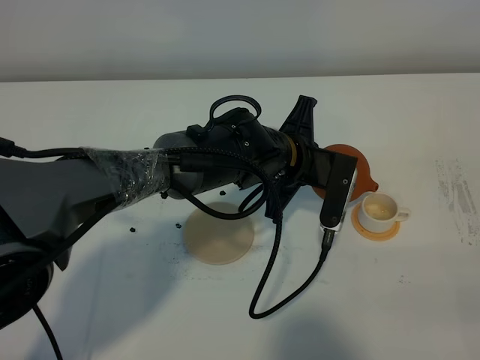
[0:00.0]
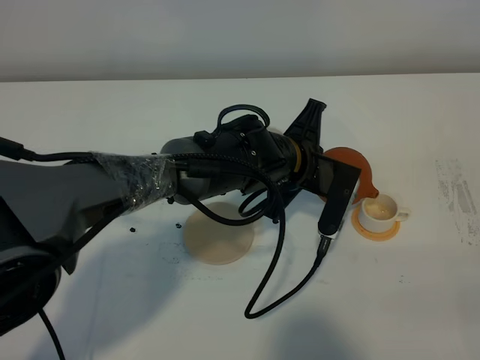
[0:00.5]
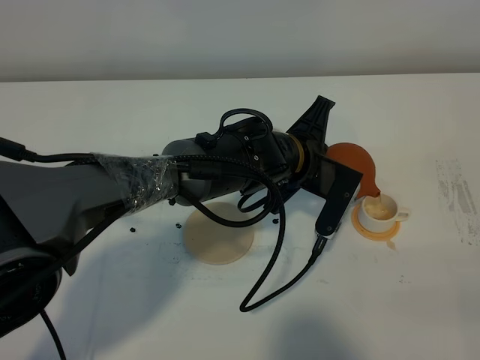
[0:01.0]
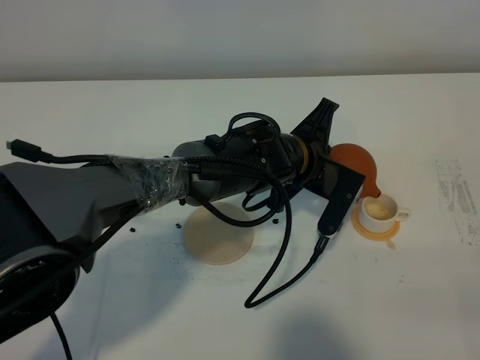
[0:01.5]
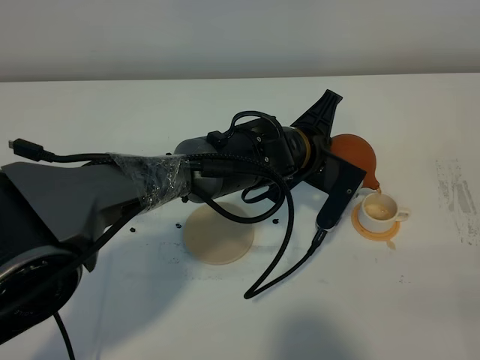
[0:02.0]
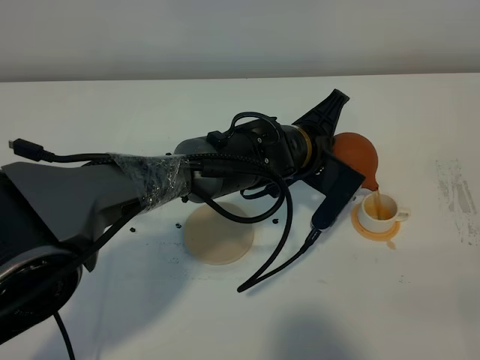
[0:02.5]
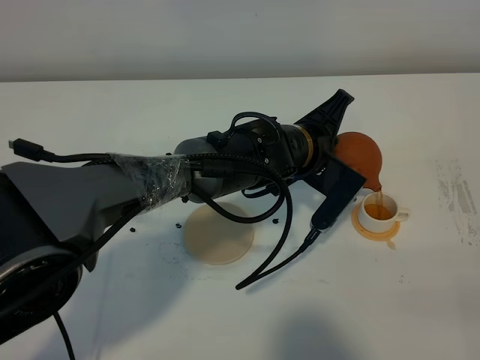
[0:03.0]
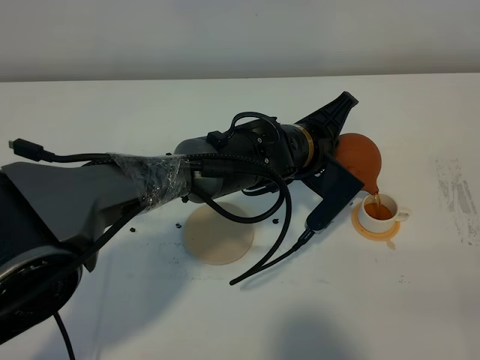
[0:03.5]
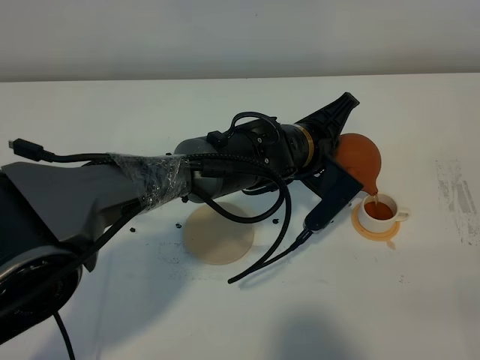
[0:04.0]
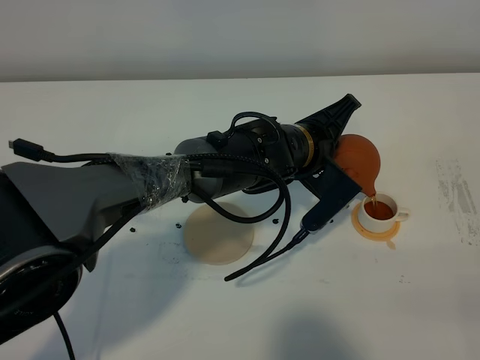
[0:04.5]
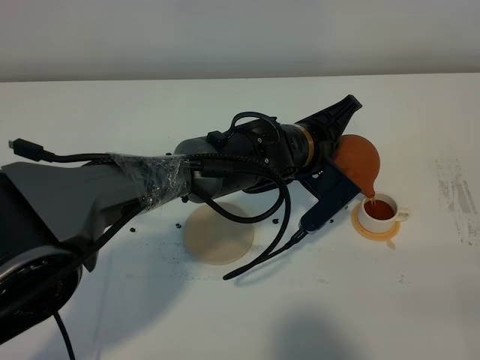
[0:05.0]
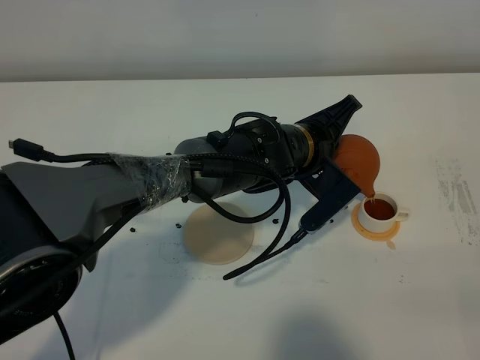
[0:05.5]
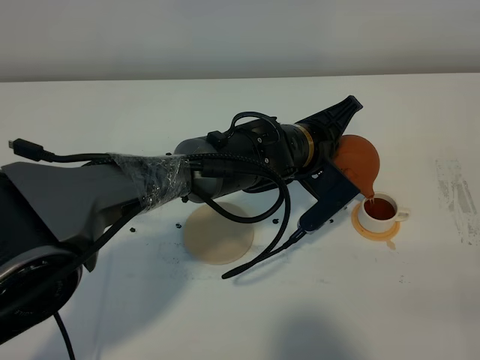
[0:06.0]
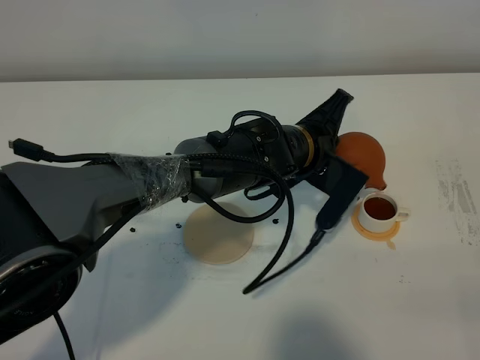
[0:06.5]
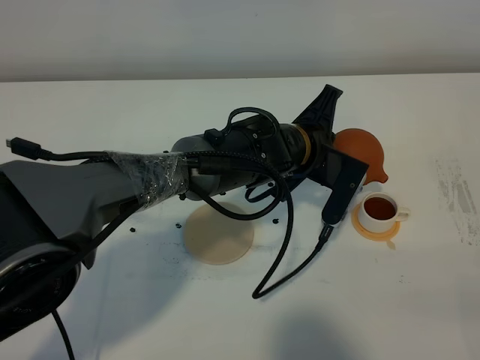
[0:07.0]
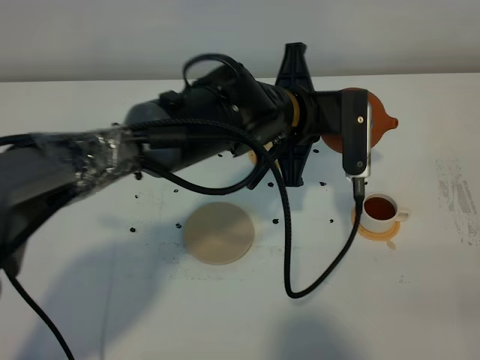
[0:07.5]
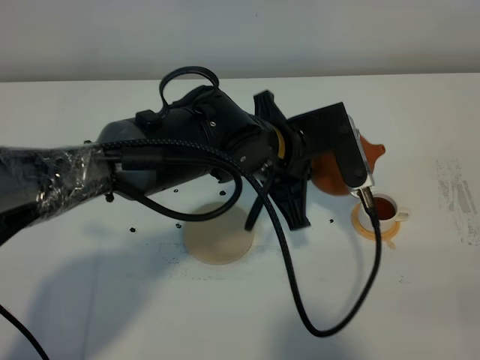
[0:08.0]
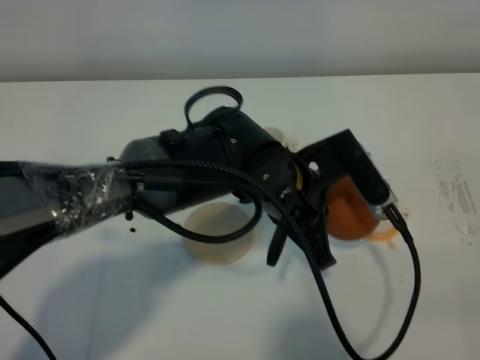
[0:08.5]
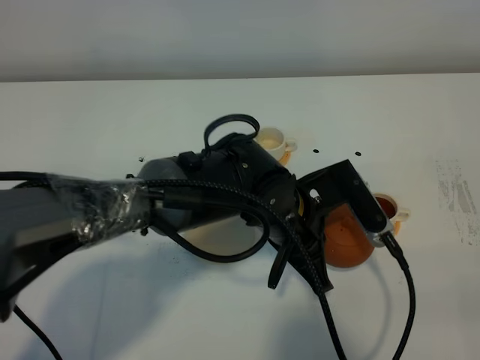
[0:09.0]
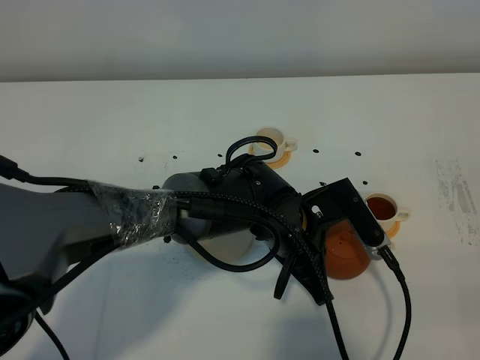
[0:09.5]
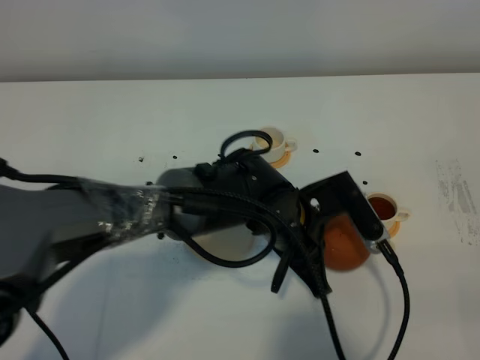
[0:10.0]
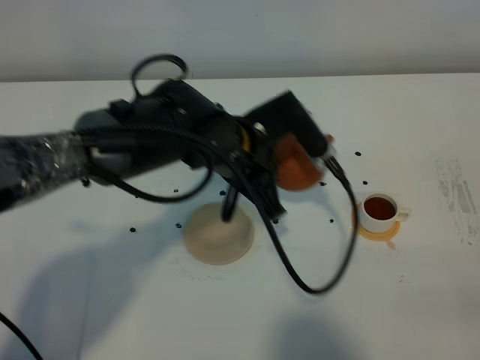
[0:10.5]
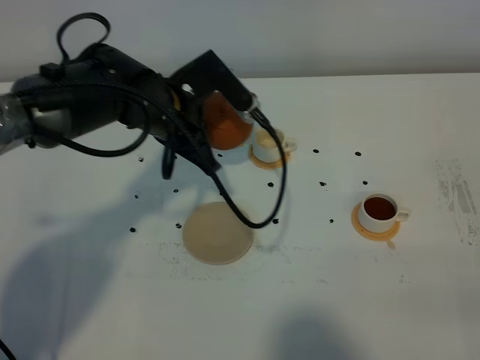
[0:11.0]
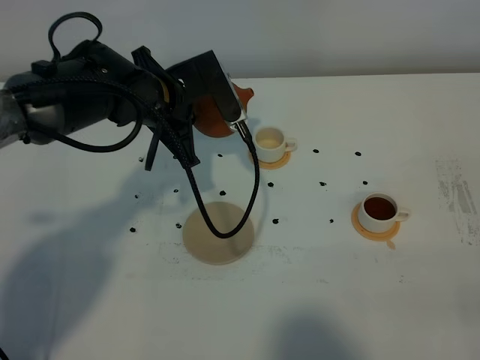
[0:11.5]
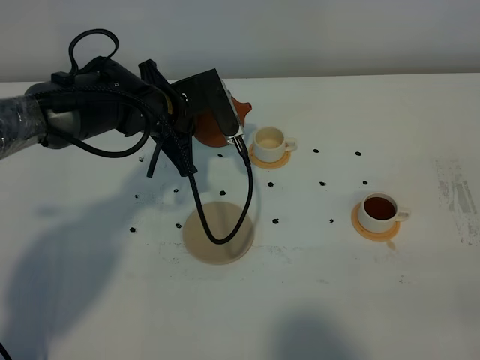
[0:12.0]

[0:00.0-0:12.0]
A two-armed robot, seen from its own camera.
Task of the whole recording: grasp the brown teapot and pour the tea into the two white teacups one by one, put the brown teapot back in its original place.
0:00.0 to 0:02.0: The grippers stay close to where they were, moving slightly.
0:02.0 to 0:04.0: The grippers make only small movements.
0:04.0 to 0:06.0: Neither gripper changes place.
0:06.0 to 0:08.0: The left gripper travels upward and backward by roughly 10 cm.
0:08.0 to 0:10.0: The left gripper shifts some 5 cm downward.
0:10.0 to 0:12.0: The left gripper is displaced to the left and forward by roughly 20 cm.

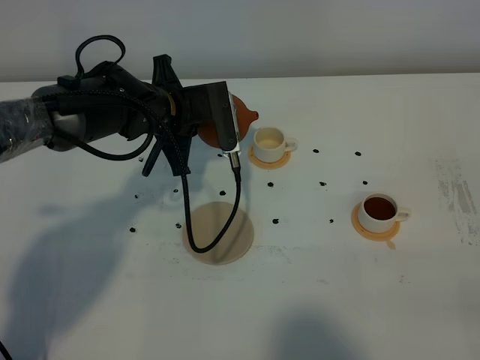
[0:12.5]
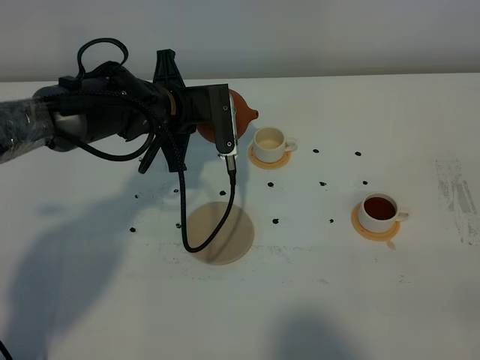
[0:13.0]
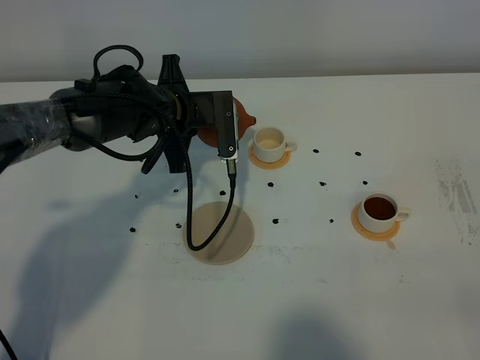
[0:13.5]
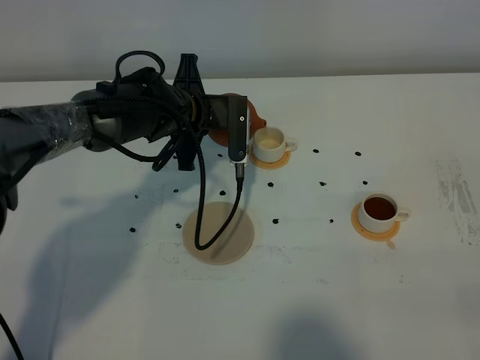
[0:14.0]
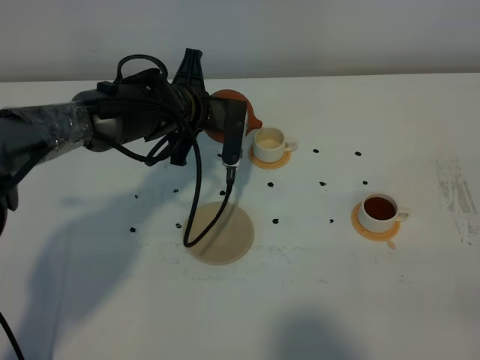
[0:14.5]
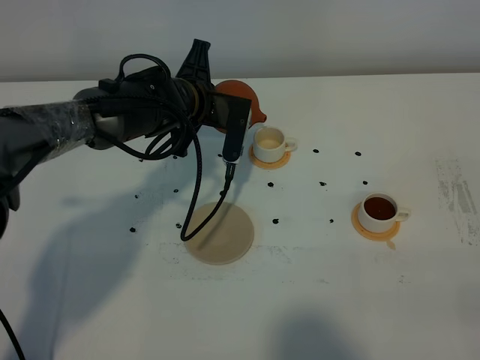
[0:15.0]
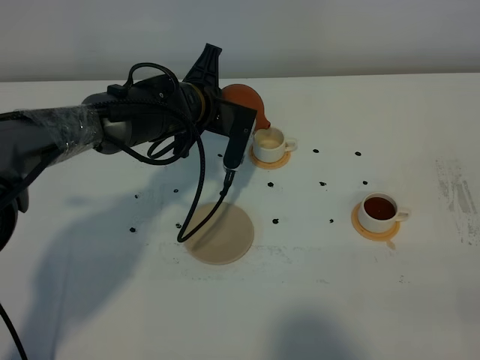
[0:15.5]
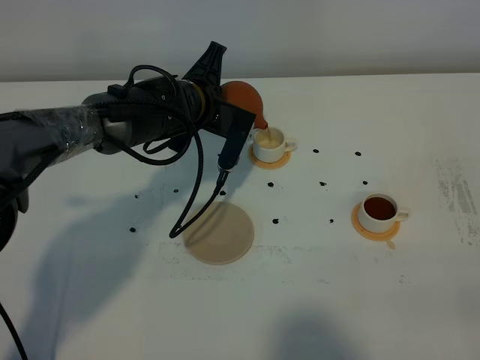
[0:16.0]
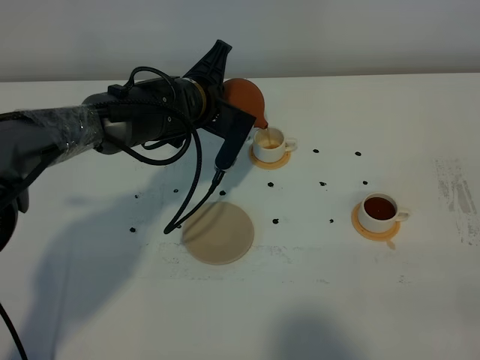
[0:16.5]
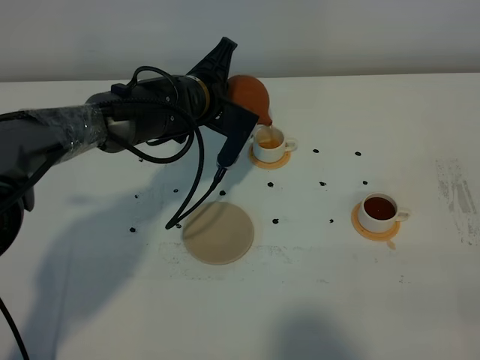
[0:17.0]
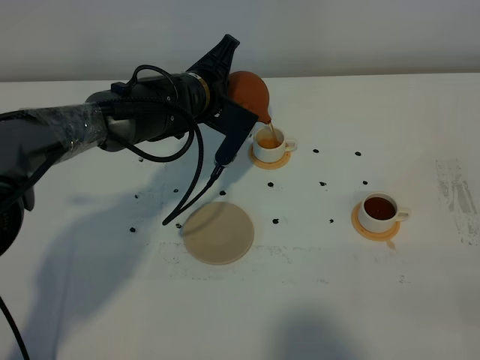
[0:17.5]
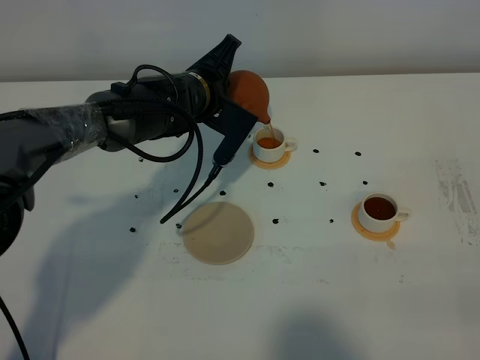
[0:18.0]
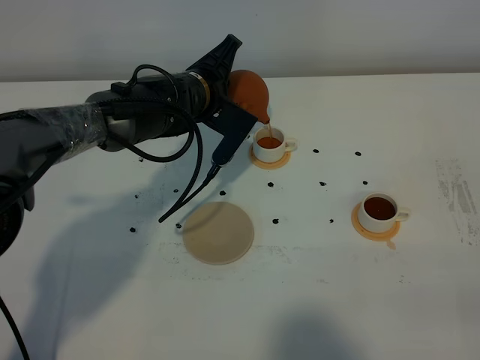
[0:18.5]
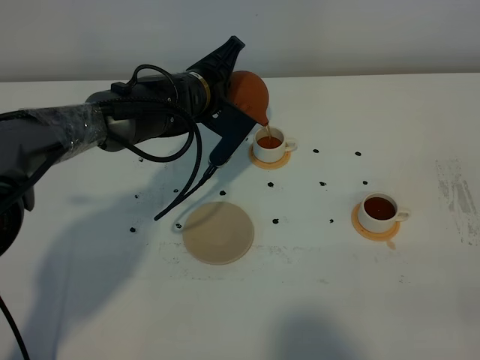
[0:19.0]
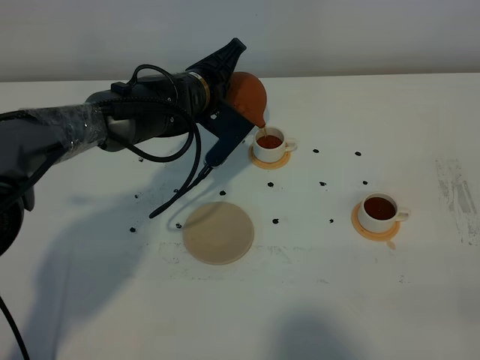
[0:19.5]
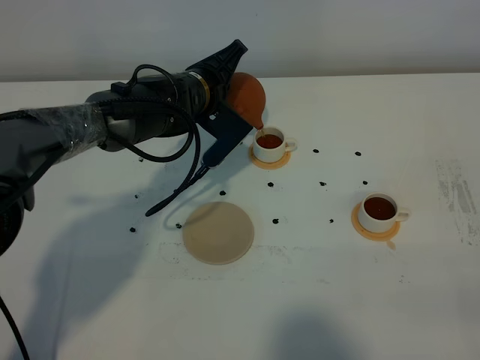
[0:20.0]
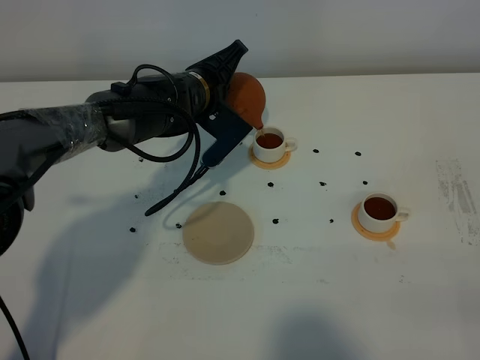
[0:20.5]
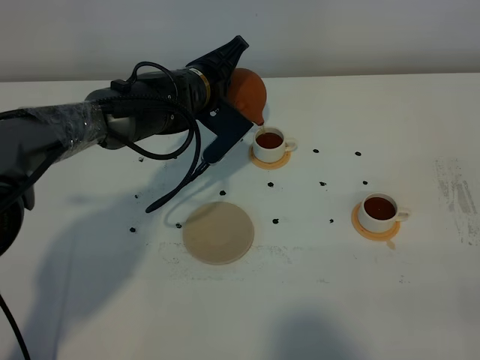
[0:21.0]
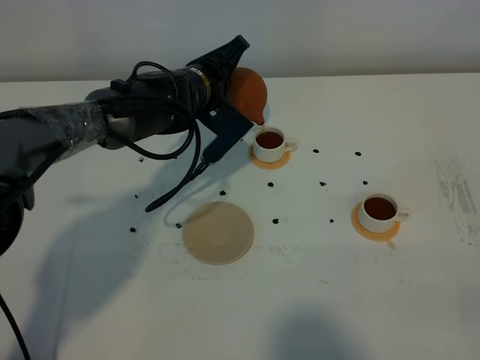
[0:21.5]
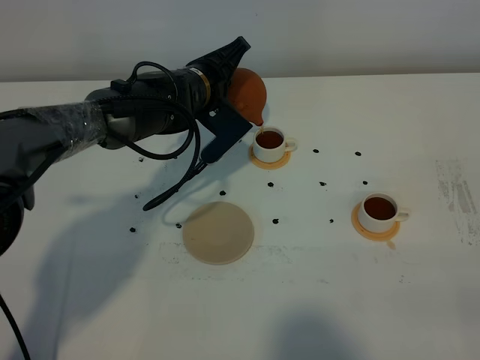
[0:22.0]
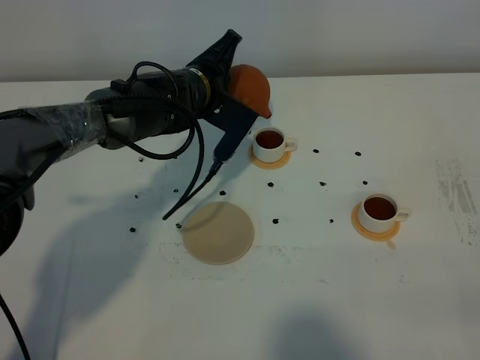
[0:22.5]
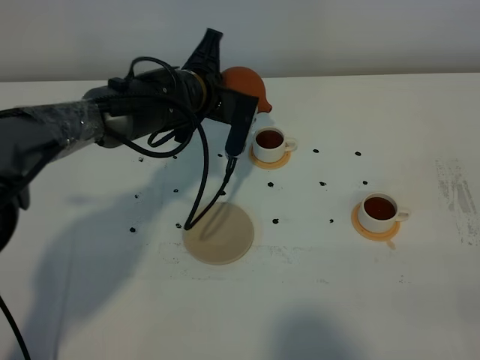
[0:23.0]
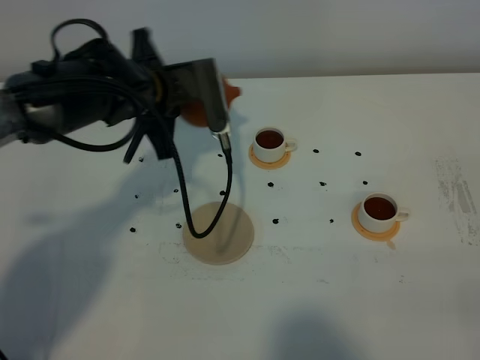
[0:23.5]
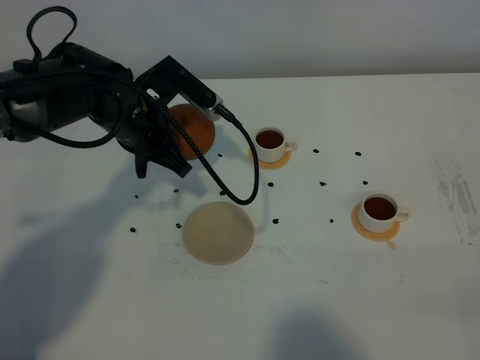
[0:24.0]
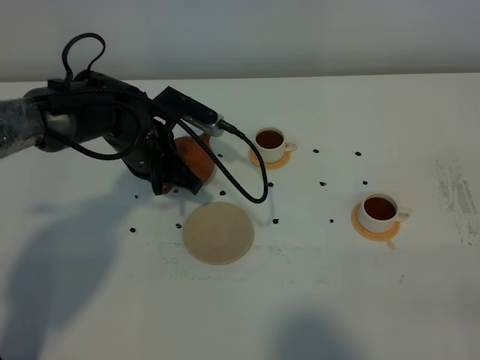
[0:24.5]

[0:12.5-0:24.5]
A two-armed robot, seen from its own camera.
Task of the whole recording: grasp the brown teapot and pour the tea into the two white teacups one by one, put the brown teapot back in its original place.
Step, 0:12.5 to 0:22.5: Pour tea into the teacup with the left gripper.
0:16.5 to 0:22.5: The grippers move only a little.
0:22.5 to 0:24.5: The left gripper travels to the left and backward by approximately 10 cm.

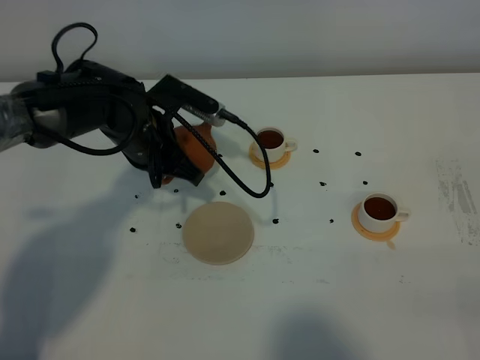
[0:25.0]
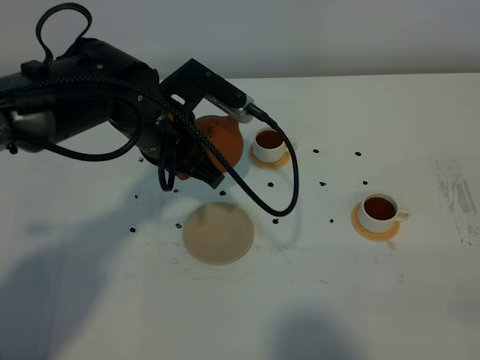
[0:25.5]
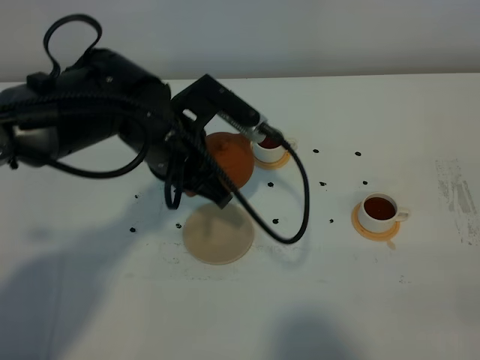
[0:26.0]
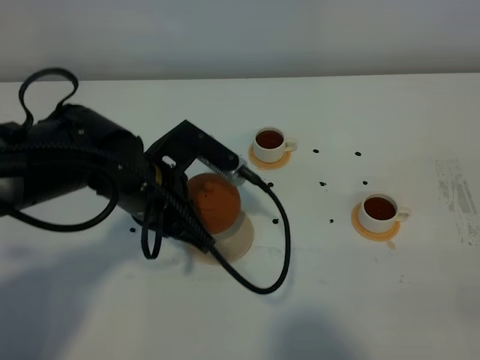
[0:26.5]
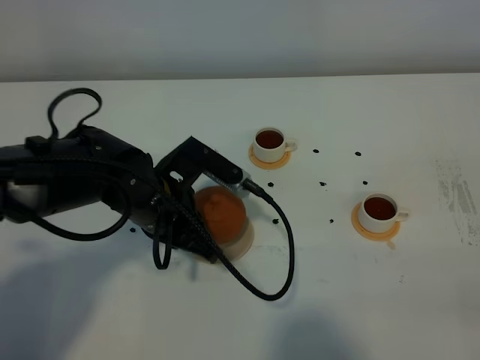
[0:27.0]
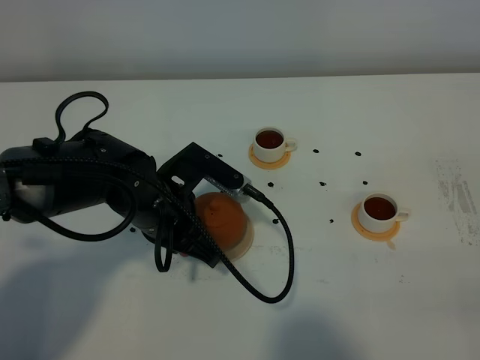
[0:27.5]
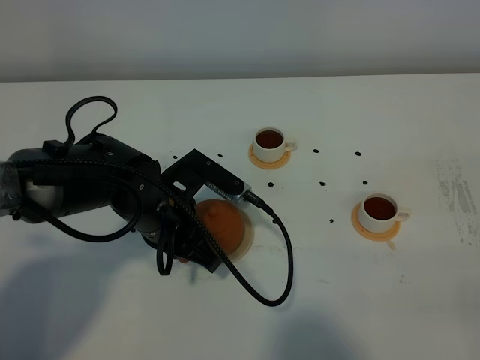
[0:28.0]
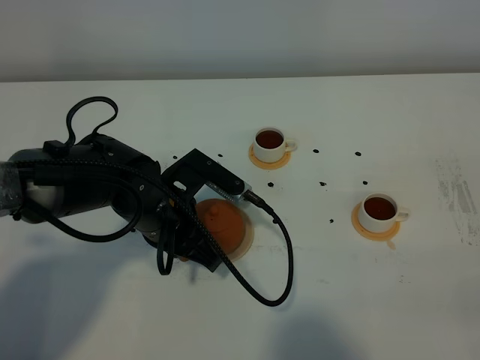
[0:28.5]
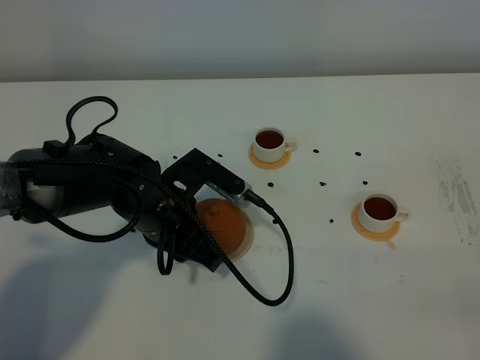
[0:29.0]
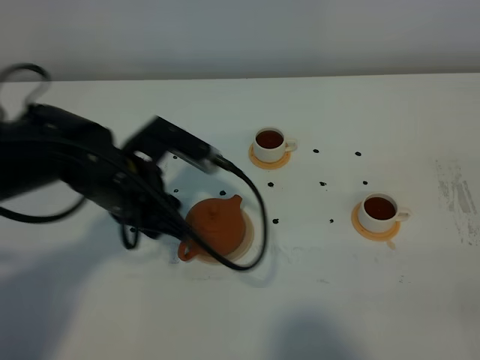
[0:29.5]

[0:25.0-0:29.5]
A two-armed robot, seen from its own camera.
Task of the whole recording: grasp the brown teapot and pour the tea into the two white teacups one by one, put the brown teapot back in its original place.
0:25.0 to 0:27.0: The left gripper goes roughly 10 cm backward.
0:27.0 to 0:29.5: The left gripper shifts by some 5 cm, and opens its fingers.
